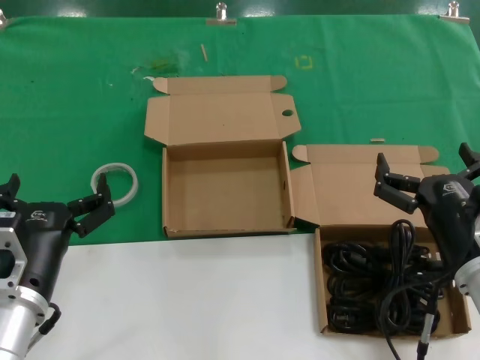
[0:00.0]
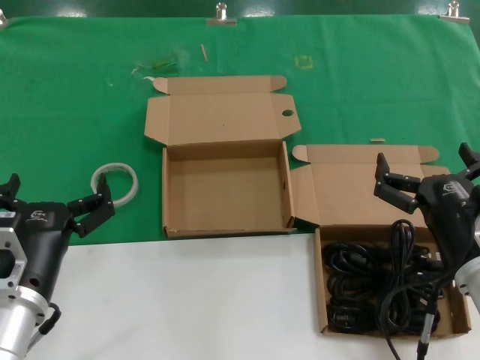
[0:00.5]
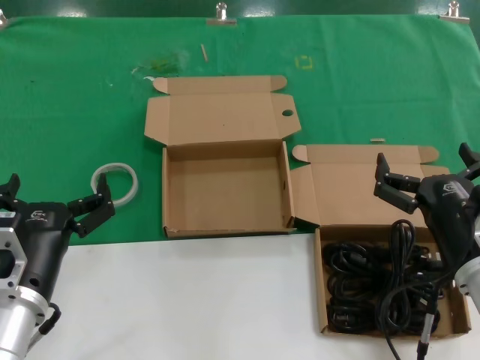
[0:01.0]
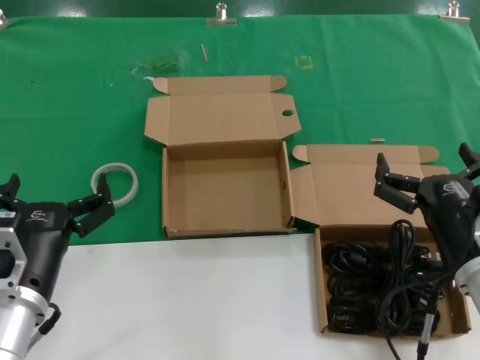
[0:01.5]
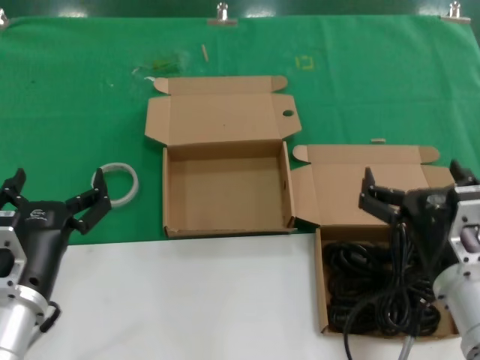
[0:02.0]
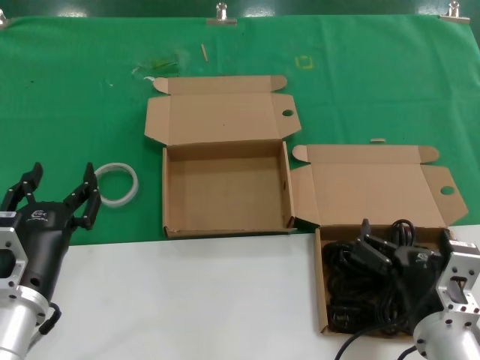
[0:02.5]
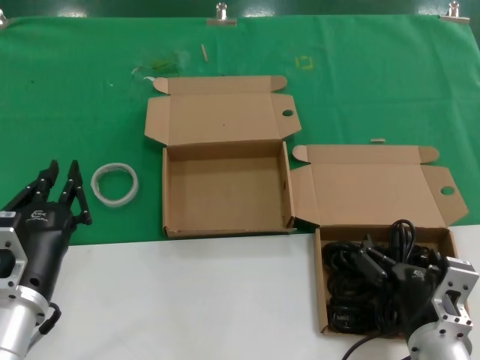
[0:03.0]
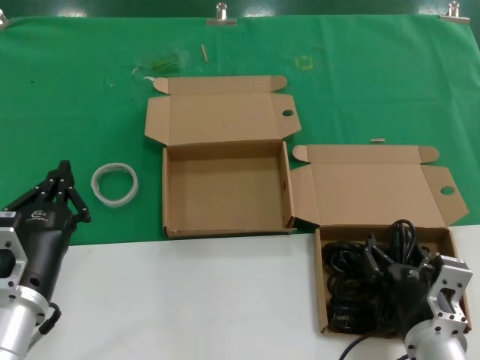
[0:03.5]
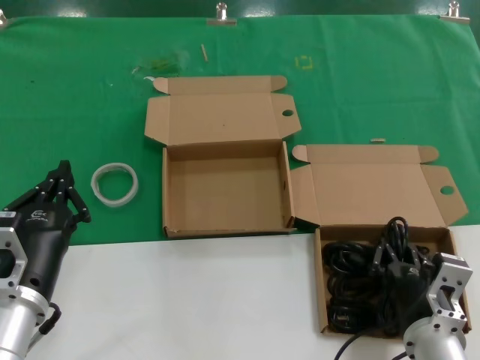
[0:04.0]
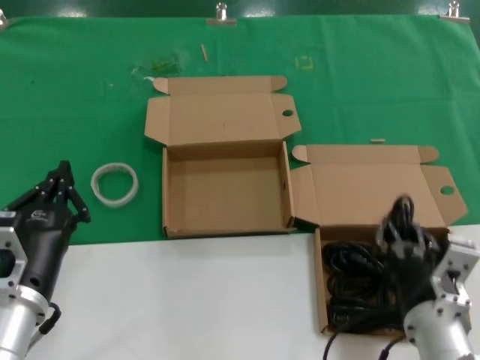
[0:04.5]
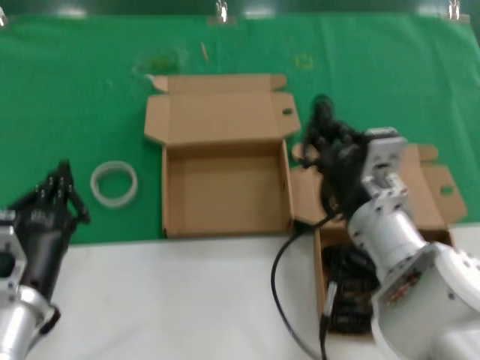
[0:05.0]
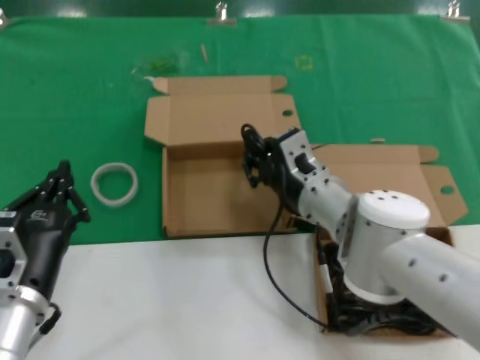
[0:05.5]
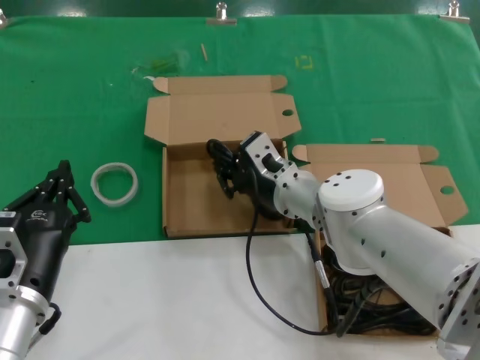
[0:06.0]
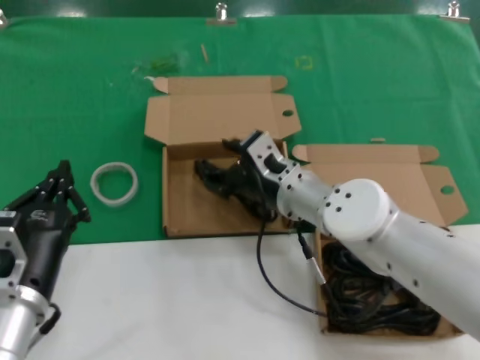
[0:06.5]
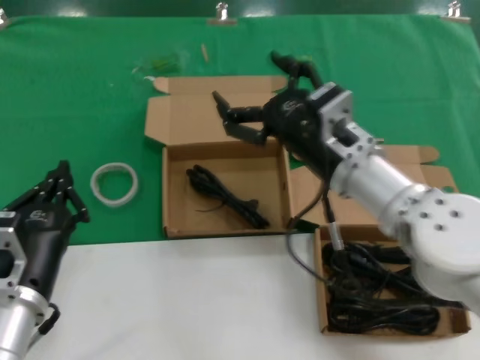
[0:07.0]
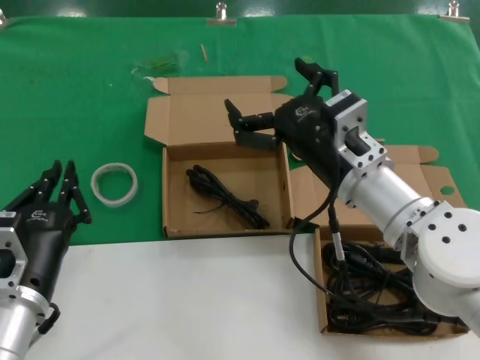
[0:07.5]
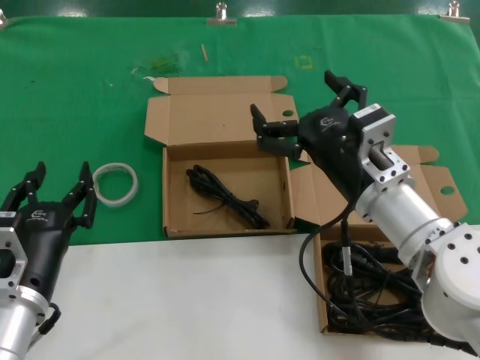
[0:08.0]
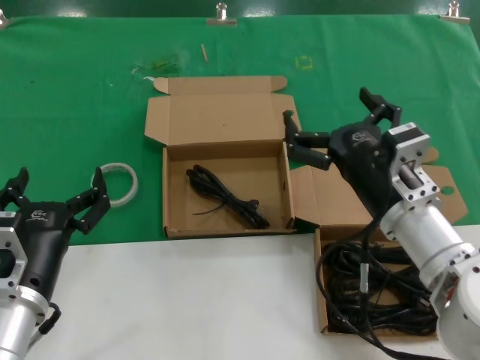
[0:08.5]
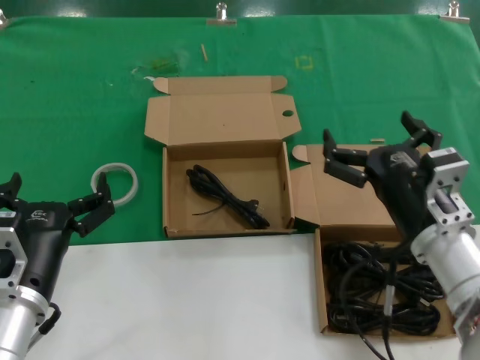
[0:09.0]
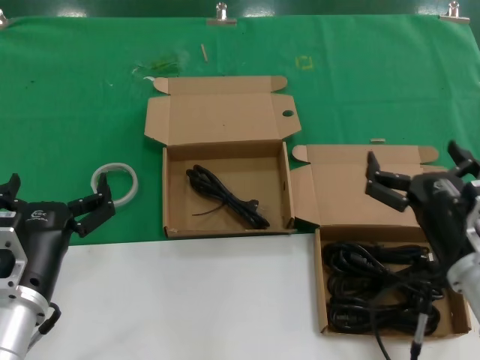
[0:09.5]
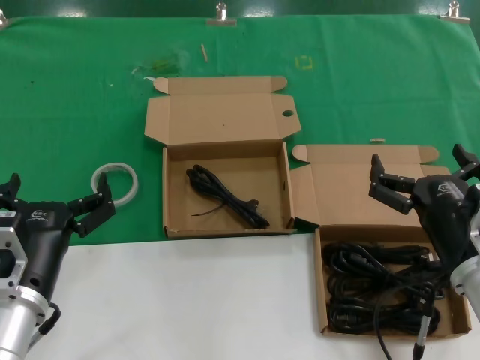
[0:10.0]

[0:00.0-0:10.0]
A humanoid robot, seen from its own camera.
Task of the whole recording: Pick up the power cord from the box containing it and place it in another box.
Step, 0:00.0 to 0:04.0: Grasp the data cable.
Step, 0:04.5 to 0:06.5: Place the data cable in the another box.
0:00.0 to 0:02.0: The hands move only a little.
0:02.0 to 0:04.0: The right hand heads downward, covering about 10 cm.
0:04.0 to 0:06.0: The right hand moves forward and to the left, about 25 cm.
0:06.0 to 0:08.0: The right hand is displaced backward, to the right and upward by some 15 cm.
0:08.0 to 0:10.0: The right hand goes roughly 15 cm to the right, backward and downward.
